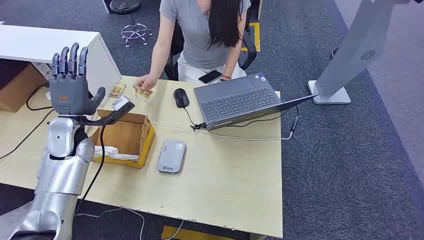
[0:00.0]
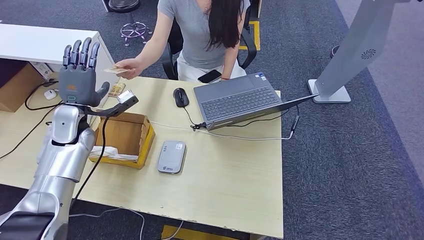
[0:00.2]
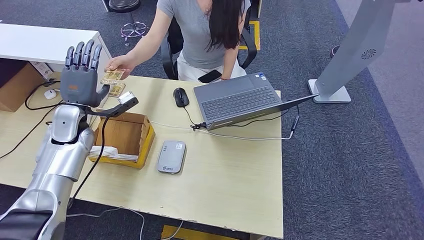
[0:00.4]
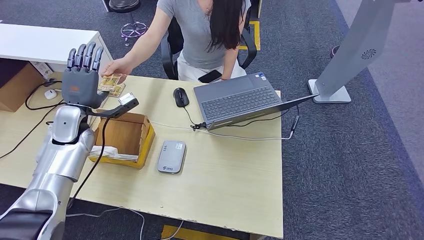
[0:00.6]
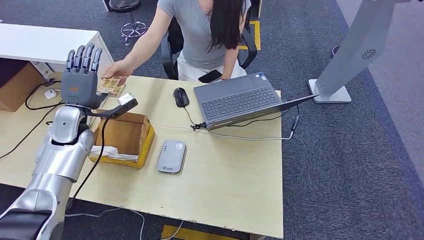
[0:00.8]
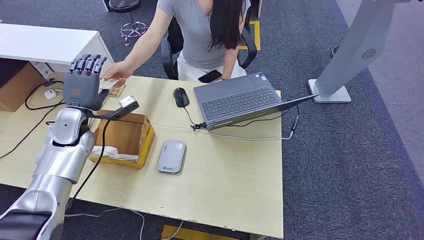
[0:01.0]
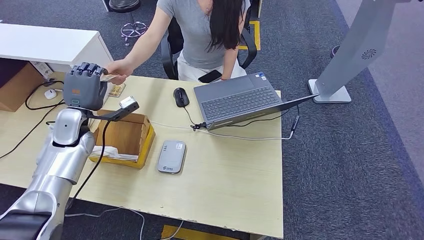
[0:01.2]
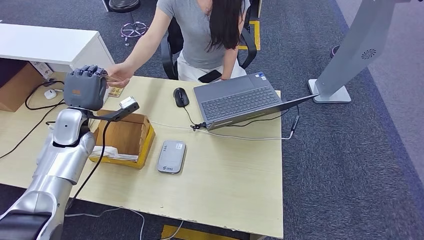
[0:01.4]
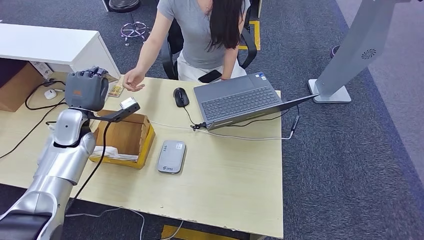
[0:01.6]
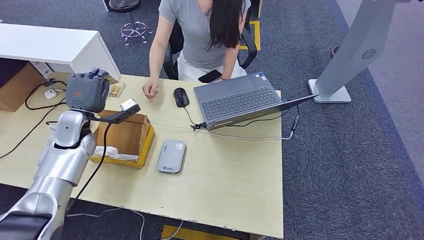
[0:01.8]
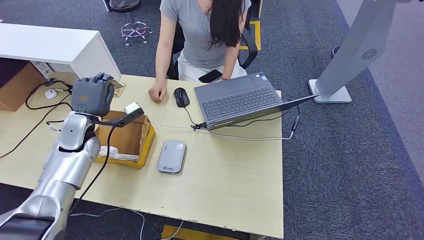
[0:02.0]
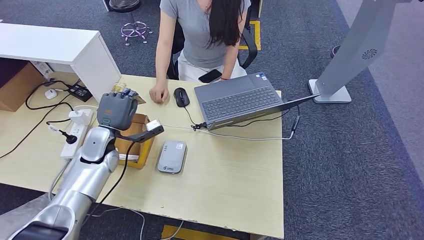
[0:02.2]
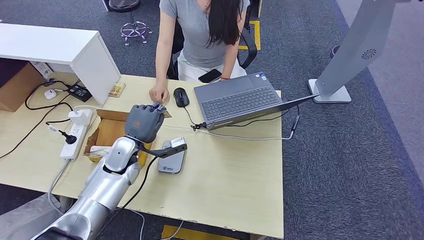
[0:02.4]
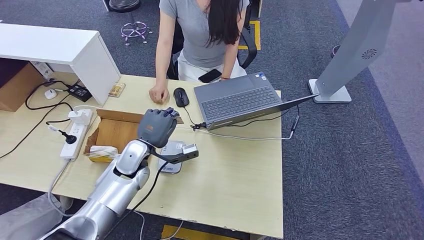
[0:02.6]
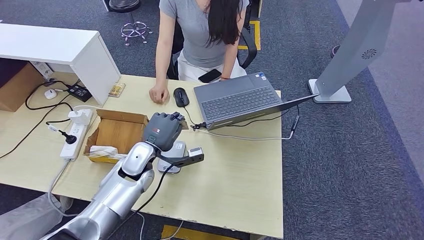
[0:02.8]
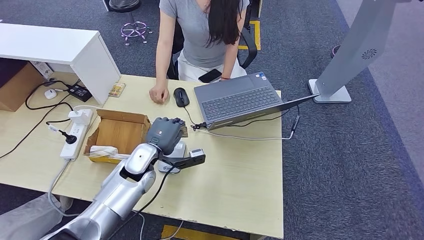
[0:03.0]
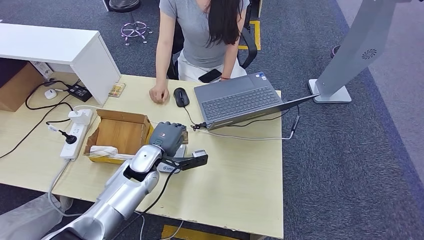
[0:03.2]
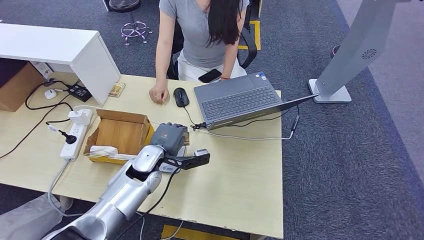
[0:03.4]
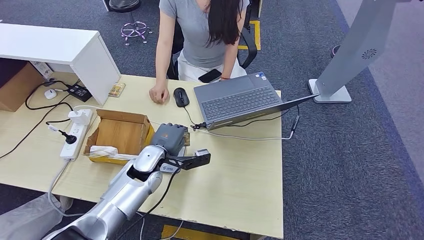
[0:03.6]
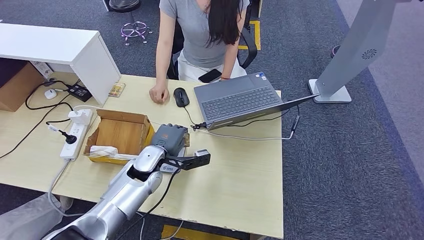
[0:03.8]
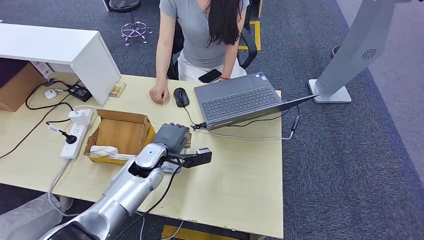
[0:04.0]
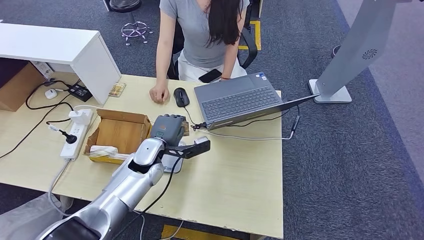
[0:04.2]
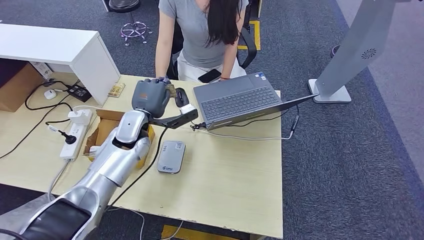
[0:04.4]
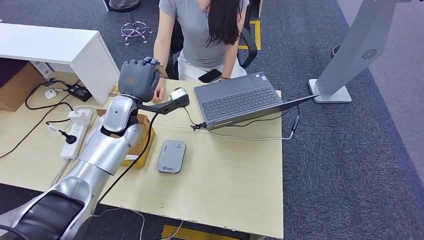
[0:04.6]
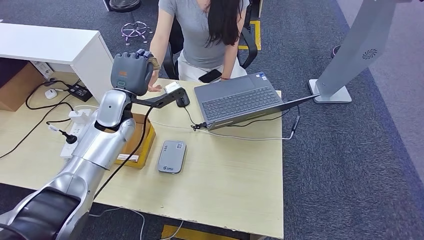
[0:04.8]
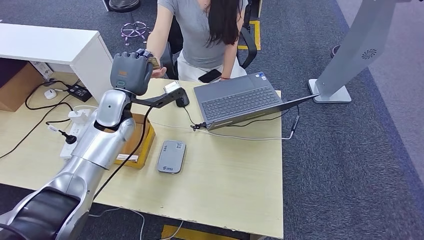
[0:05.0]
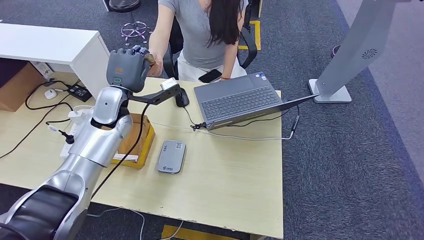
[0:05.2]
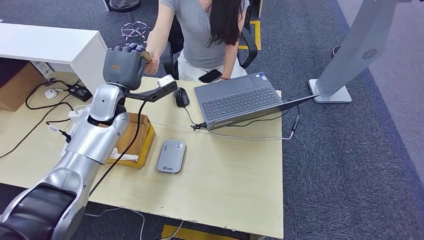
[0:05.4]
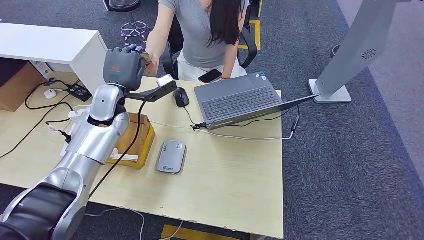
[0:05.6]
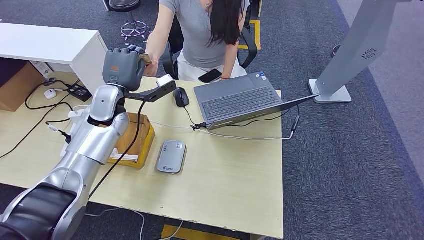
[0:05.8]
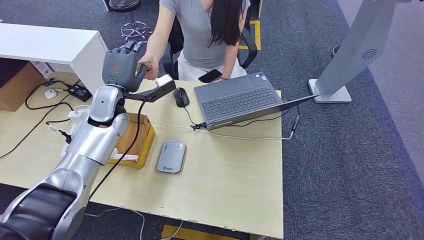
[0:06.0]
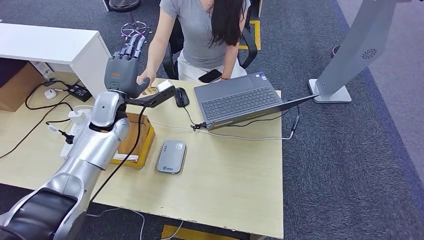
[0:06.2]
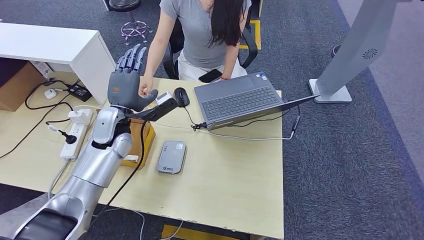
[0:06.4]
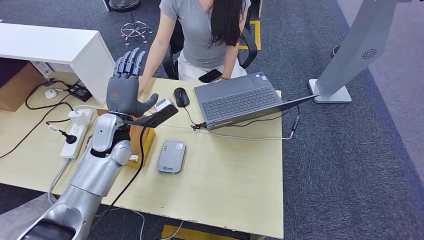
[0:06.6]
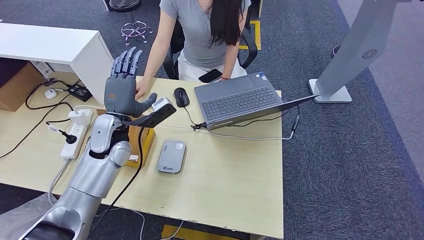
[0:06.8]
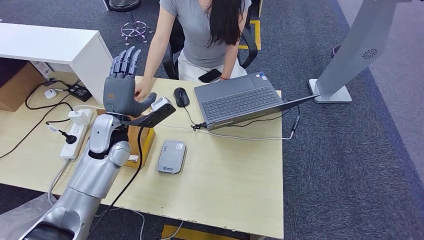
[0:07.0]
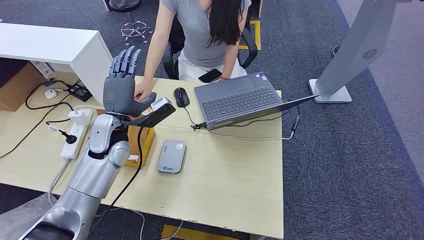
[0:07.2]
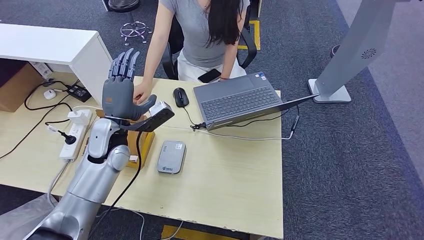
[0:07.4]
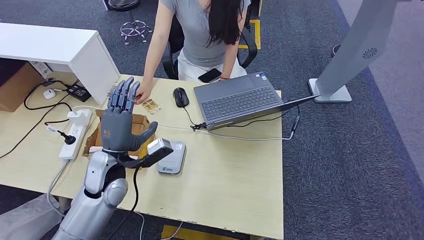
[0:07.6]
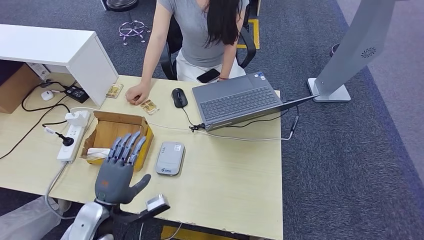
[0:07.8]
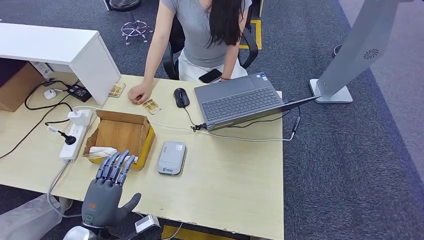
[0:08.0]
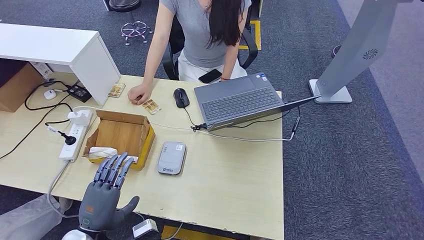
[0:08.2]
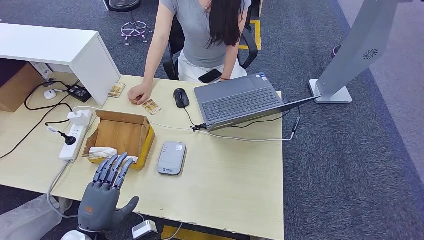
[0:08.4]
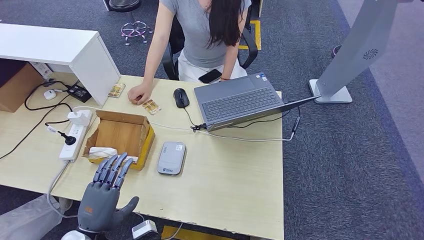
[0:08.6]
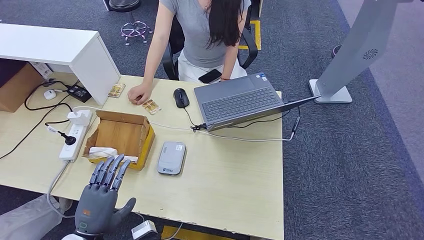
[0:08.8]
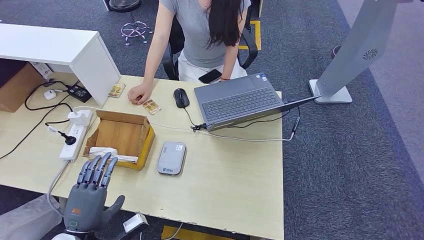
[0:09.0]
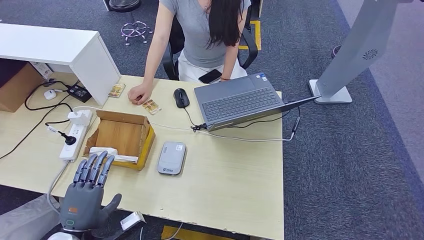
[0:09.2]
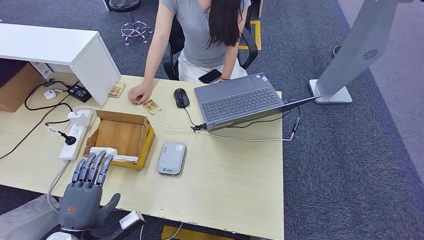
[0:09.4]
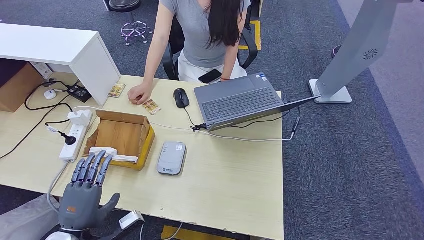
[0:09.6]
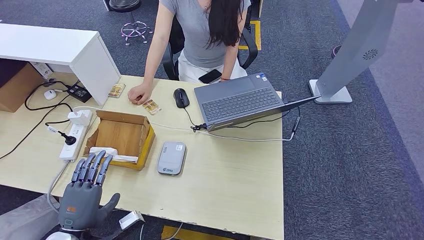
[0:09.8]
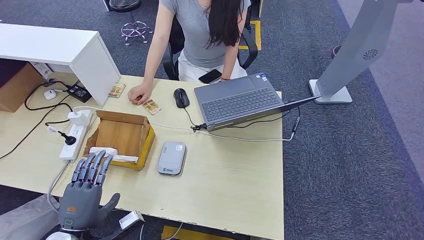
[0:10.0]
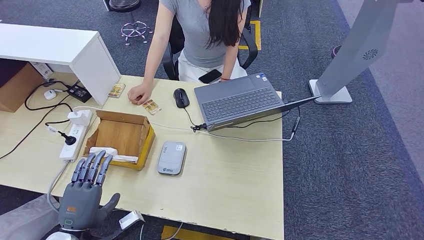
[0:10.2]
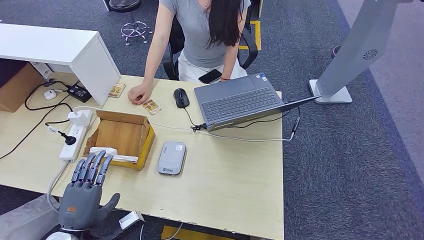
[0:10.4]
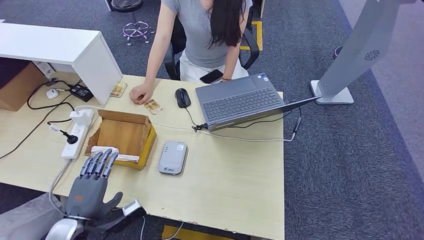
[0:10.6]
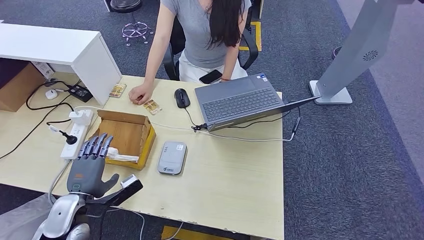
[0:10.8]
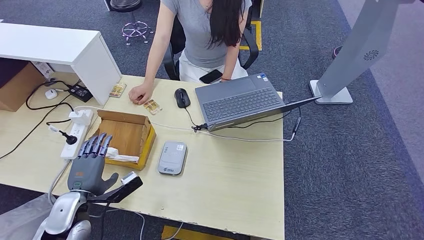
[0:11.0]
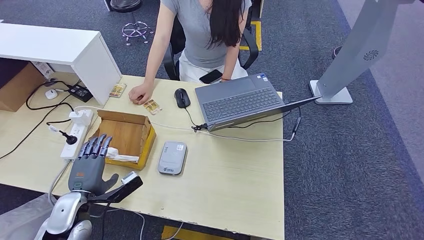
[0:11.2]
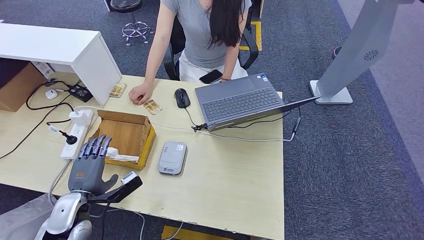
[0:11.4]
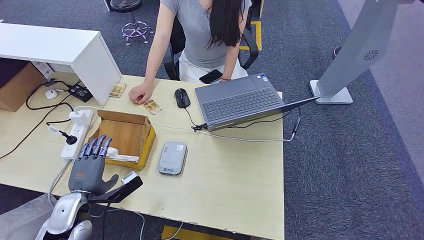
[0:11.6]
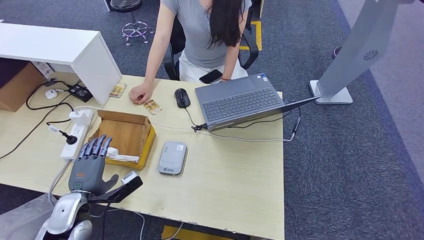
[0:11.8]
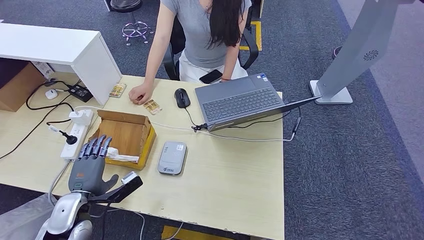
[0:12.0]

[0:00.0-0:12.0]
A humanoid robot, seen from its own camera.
Step, 0:00.0 to 0:01.8: Take the ID card from the person's hand.
Step, 0:02.4 to 0:03.8: Place the ID card on the card reader.
Step, 0:04.4 to 0:06.0: Hand the ID card to the person.
0:01.6 to 0:03.0: The left hand travels to the right and downward by approximately 20 cm.
0:03.0 to 0:04.4: The left hand travels upward and forward by about 10 cm.
0:04.4 to 0:06.0: The left hand shifts about 10 cm to the left and upward.
0:06.0 to 0:07.6: The left hand is displaced backward and downward by about 15 cm.
0:07.6 to 0:09.0: The left hand goes about 20 cm backward.
0:09.0 to 0:10.4: Neither hand changes place.
0:10.4 to 0:12.0: The left hand shifts some 10 cm forward.

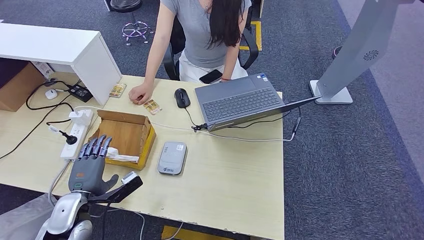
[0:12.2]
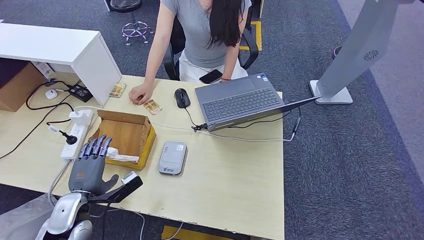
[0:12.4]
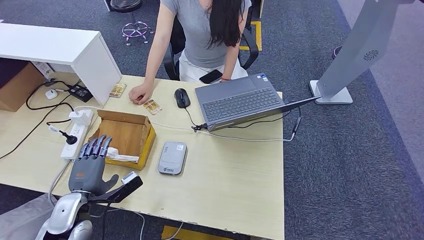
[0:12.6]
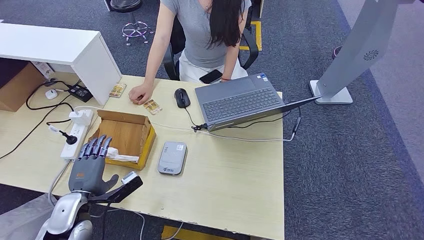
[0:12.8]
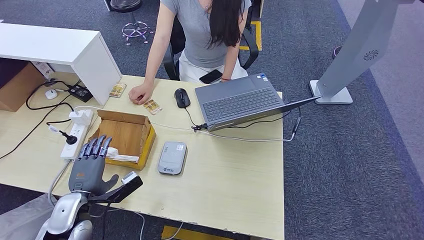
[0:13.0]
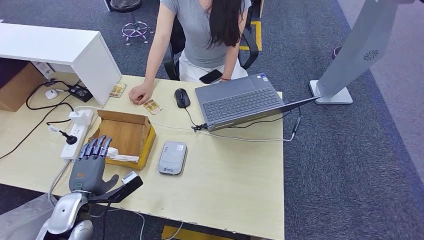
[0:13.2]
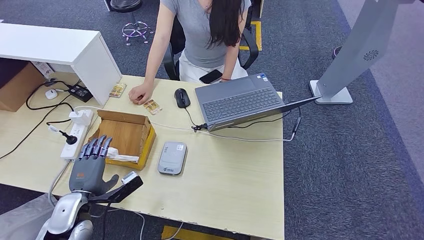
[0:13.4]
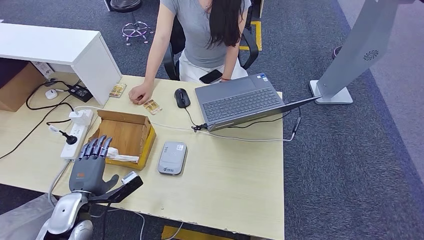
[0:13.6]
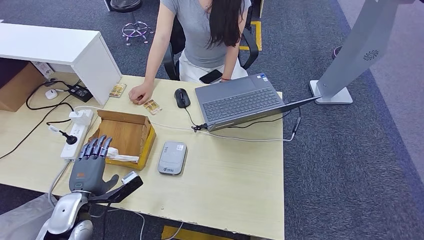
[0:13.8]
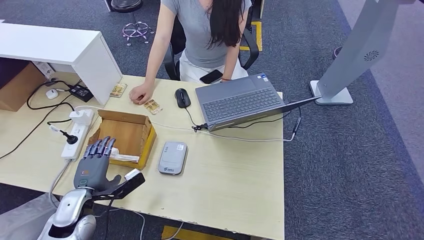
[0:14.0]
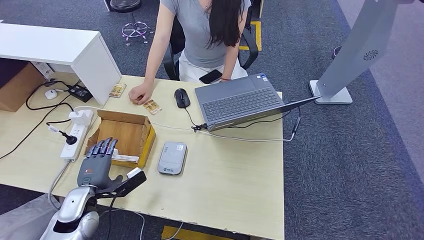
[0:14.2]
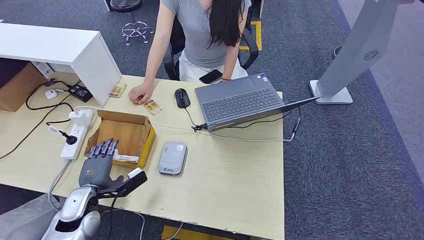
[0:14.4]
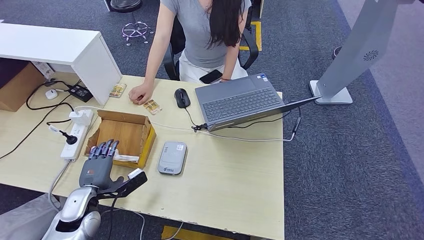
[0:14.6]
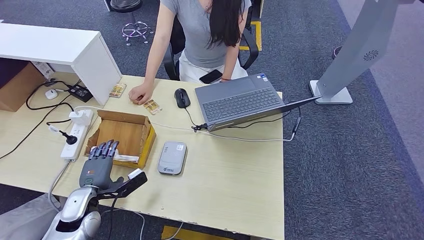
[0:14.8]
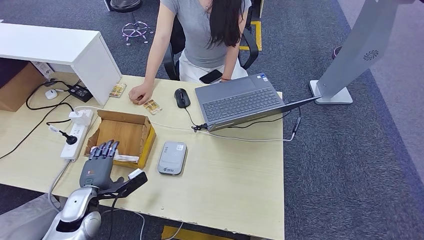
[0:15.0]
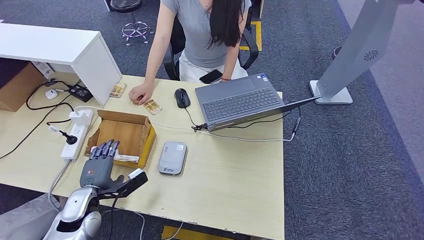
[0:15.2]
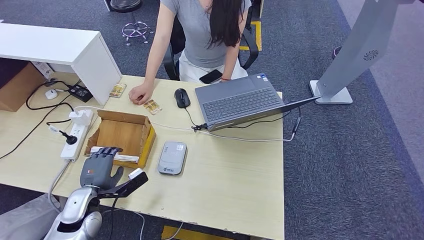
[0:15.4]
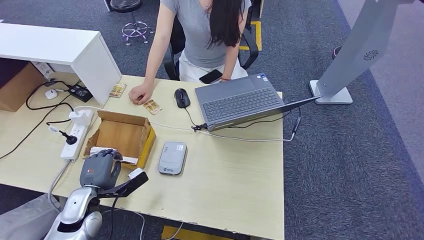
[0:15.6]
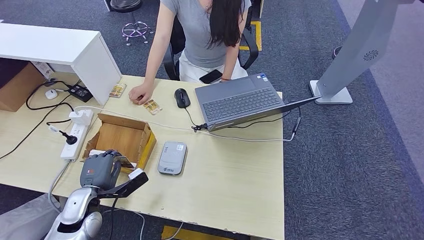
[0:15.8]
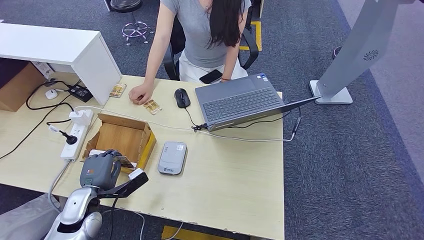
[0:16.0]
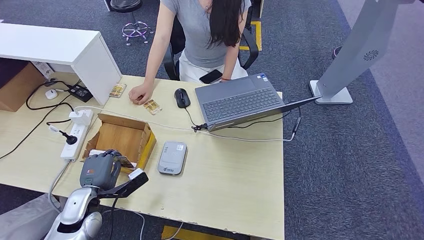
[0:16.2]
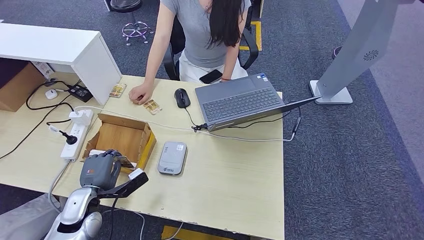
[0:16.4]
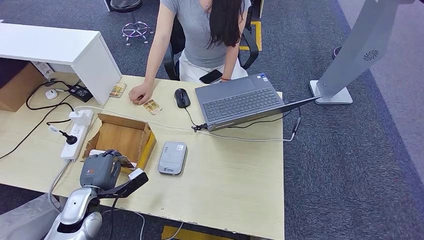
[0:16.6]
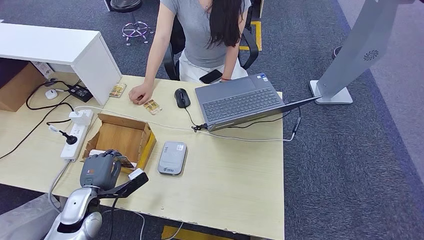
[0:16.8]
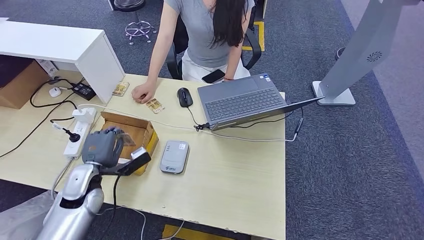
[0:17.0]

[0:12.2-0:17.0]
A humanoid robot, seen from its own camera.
0:12.2 to 0:13.8: Both hands stay about where they are.
0:13.8 to 0:15.4: The hands make only small movements.
0:15.4 to 0:17.0: The left hand shifts by some 5 cm.
